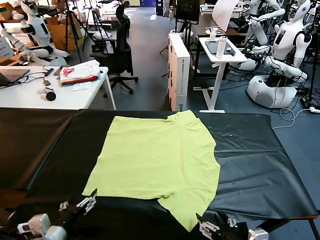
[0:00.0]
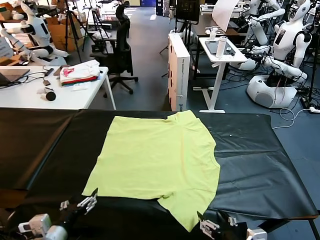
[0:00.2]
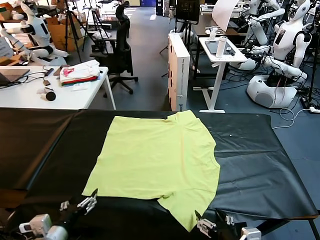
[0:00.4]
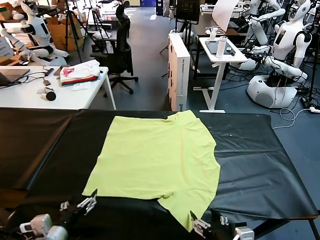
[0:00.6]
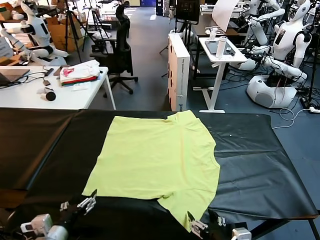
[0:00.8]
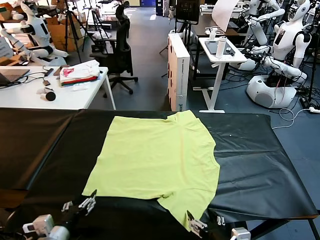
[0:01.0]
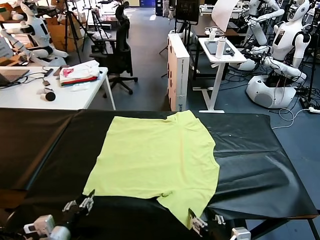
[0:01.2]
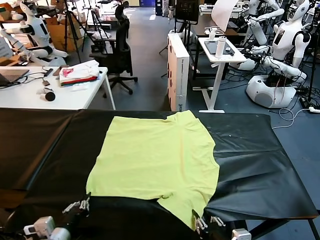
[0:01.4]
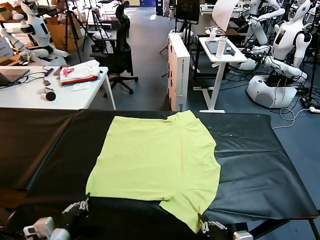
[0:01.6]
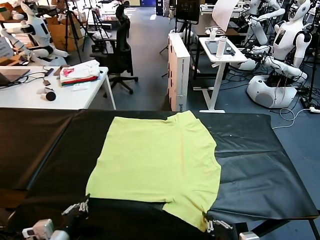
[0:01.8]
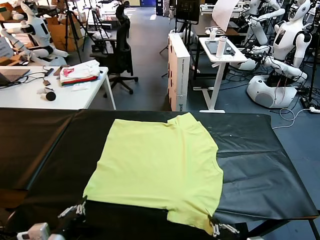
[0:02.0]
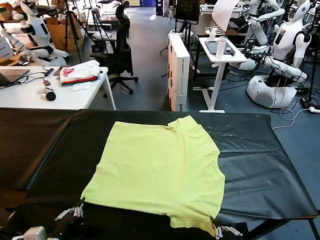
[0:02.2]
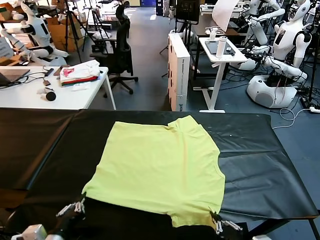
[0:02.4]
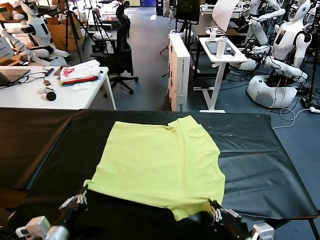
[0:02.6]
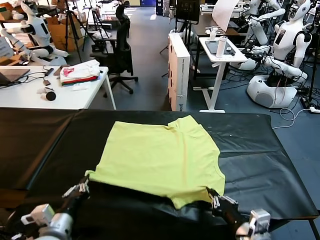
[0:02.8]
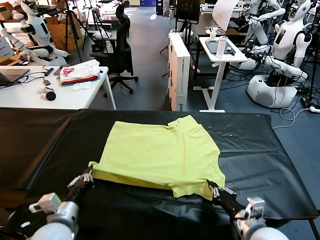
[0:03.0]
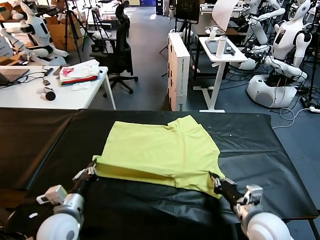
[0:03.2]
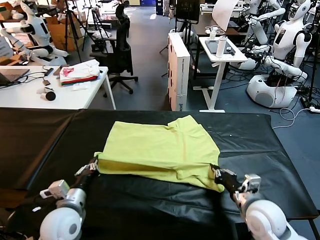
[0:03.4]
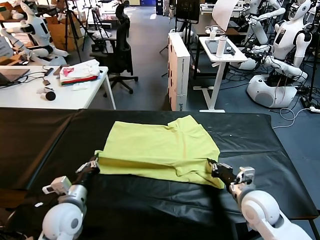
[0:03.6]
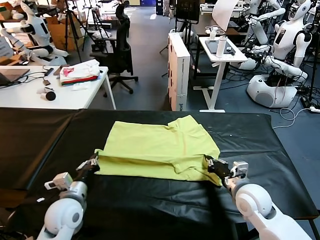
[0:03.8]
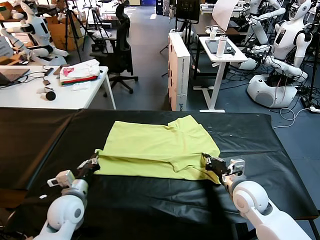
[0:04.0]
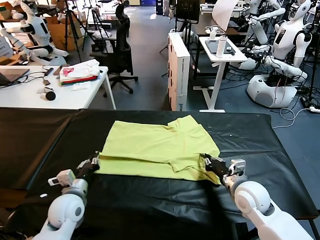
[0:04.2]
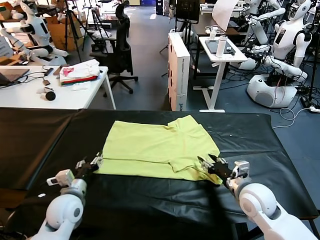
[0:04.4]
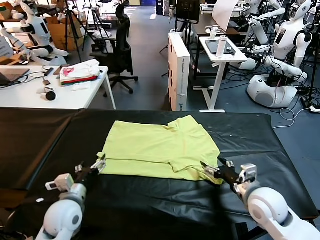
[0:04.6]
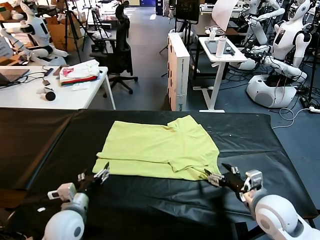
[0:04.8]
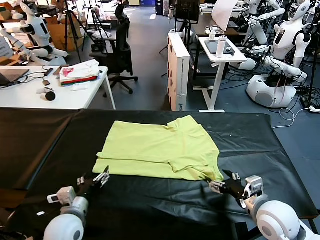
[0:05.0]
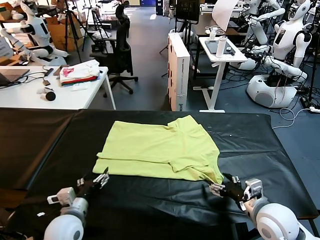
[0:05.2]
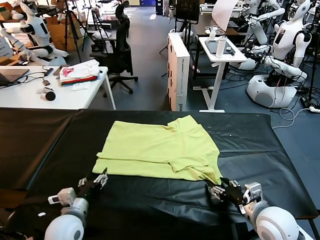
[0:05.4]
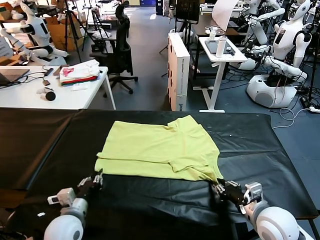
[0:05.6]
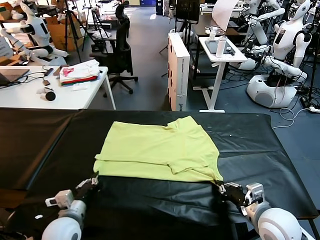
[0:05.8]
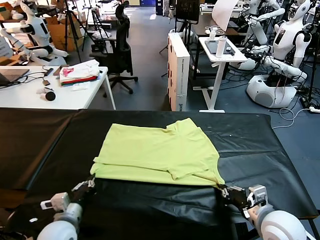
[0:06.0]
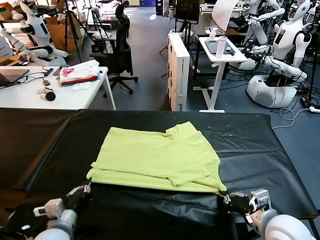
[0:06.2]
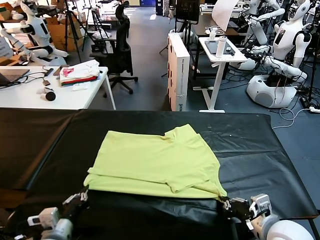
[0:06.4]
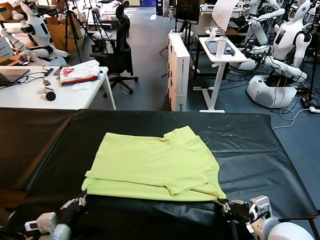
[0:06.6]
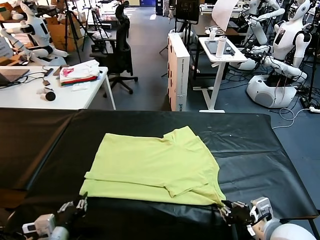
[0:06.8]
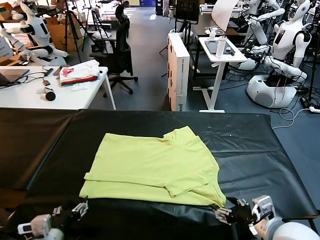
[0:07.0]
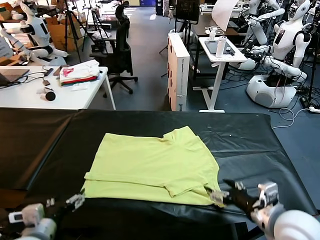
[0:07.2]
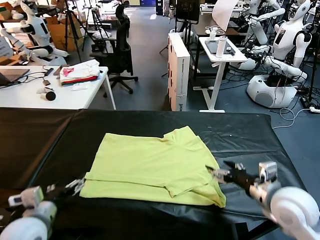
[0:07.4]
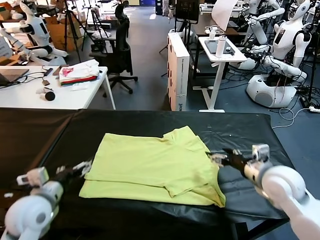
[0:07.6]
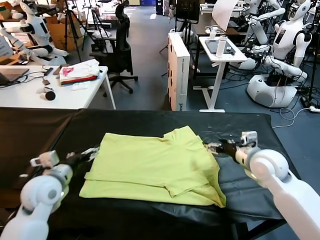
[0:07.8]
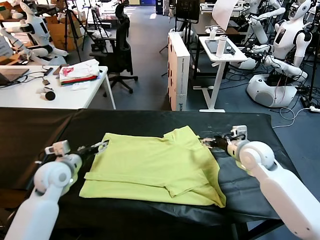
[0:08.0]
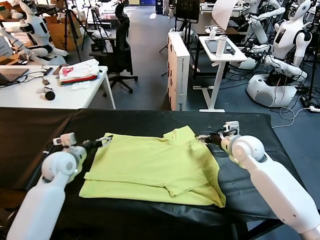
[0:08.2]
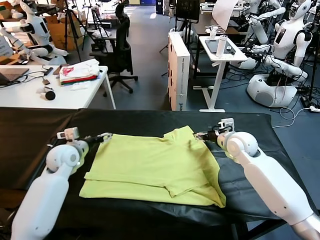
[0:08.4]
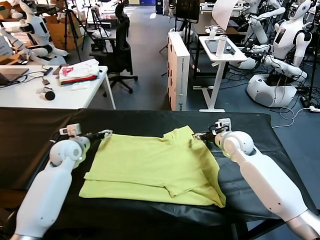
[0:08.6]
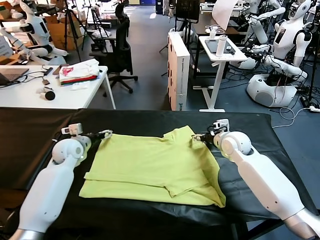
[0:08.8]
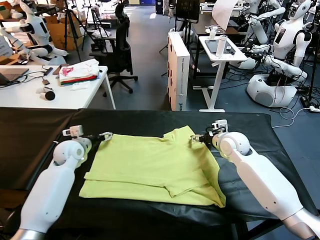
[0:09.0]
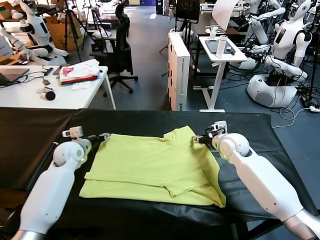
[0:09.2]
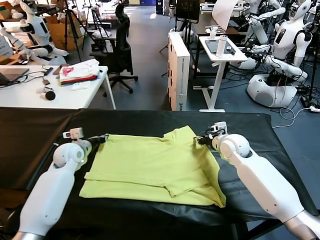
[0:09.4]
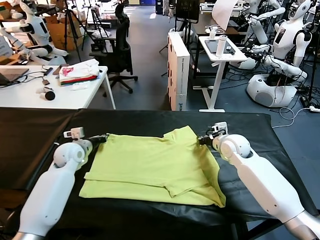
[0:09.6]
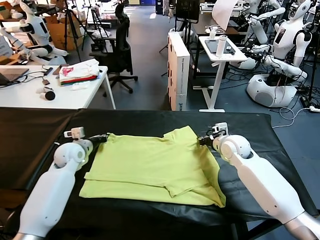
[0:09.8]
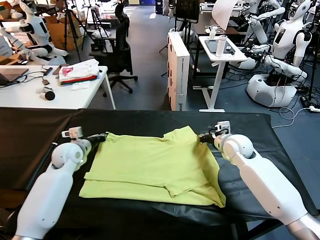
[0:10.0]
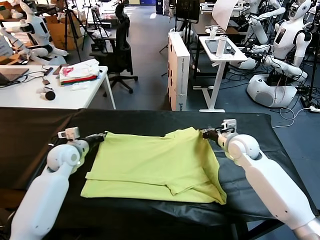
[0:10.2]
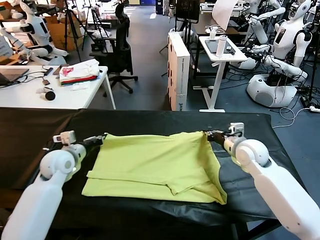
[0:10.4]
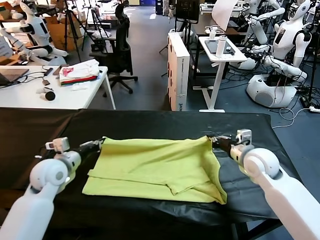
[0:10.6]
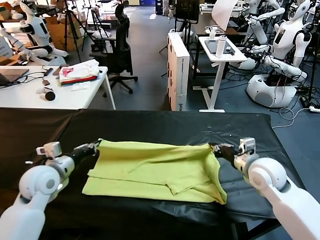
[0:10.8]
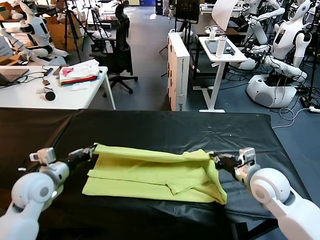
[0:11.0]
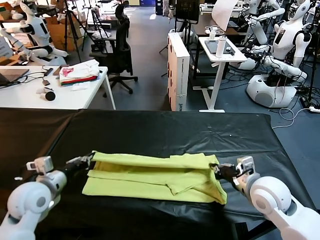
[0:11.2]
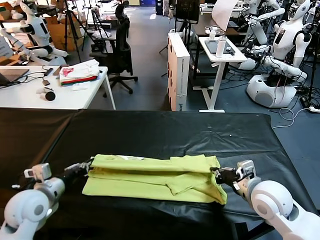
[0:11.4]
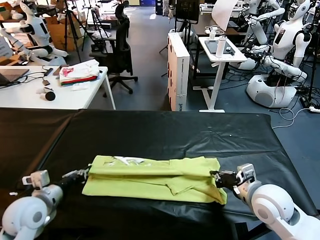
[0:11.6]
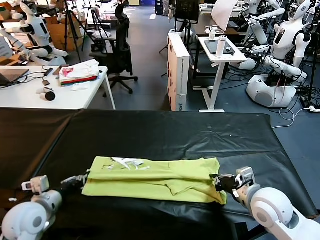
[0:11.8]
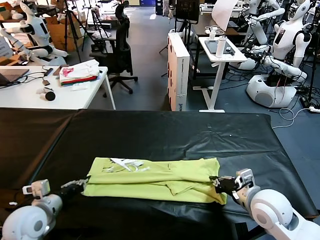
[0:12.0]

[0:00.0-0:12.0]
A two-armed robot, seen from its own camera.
Task of the whole recording: fold and organize the clothes.
Step, 0:00.0 to 0:01.6: use both grippers simultaneously to clamp the lower edge of the clothing fabric.
Step, 0:02.0 to 0:04.4: use both grippers to drag the lower edge of the fabric forward and fold it over the upper edge.
Step, 0:04.6 to 0:07.0: Drag the clothes downward with both gripper.
Step, 0:07.2 to 0:09.8: use both grippers simultaneously to clamp the upper edge of the clothing fabric.
0:01.6 to 0:03.0: The left gripper is displaced forward by about 10 cm. Meanwhile the right gripper travels forward by about 15 cm.
0:03.0 to 0:04.4: The left gripper travels forward by some 5 cm, and opens. The right gripper opens its fingers.
0:04.4 to 0:06.0: The grippers both shift backward by roughly 10 cm. The left gripper closes, while the right gripper closes.
0:06.0 to 0:07.6: The right gripper travels forward by some 20 cm, and opens up. Meanwhile the left gripper heads upward and forward, covering about 10 cm, and opens up.
0:07.6 to 0:09.0: The left gripper travels forward by roughly 20 cm, while the right gripper goes approximately 10 cm forward and downward.
0:09.0 to 0:10.4: Both grippers travel together backward, about 10 cm. The right gripper closes. The left gripper closes.
0:10.4 to 0:12.0: The two grippers go about 15 cm backward.

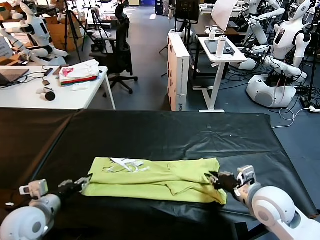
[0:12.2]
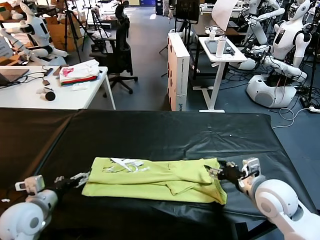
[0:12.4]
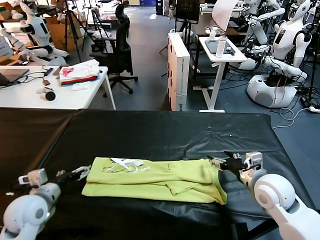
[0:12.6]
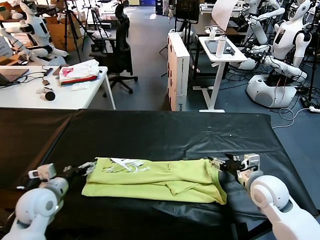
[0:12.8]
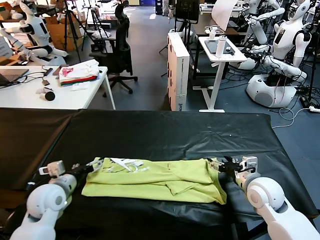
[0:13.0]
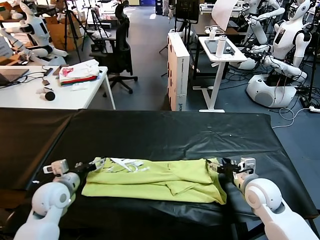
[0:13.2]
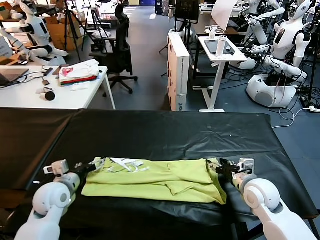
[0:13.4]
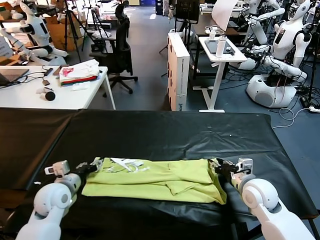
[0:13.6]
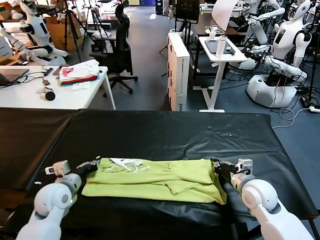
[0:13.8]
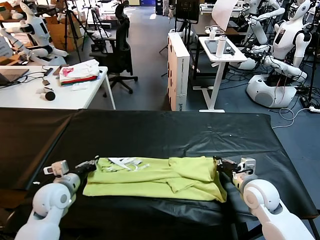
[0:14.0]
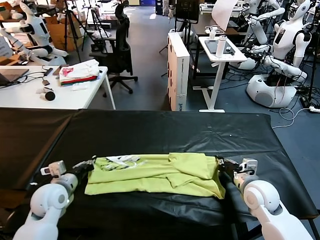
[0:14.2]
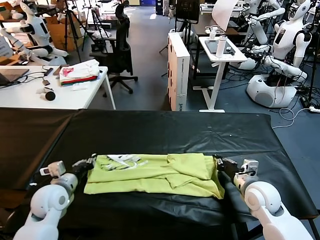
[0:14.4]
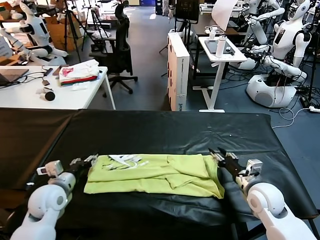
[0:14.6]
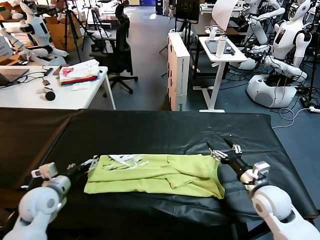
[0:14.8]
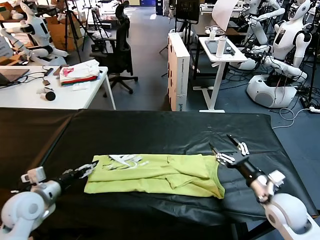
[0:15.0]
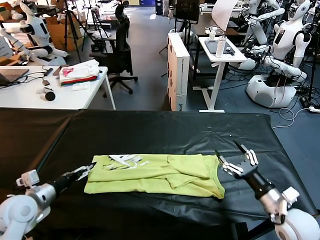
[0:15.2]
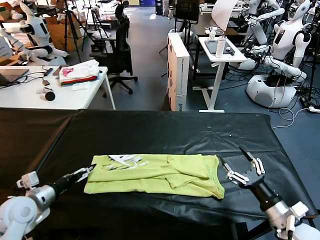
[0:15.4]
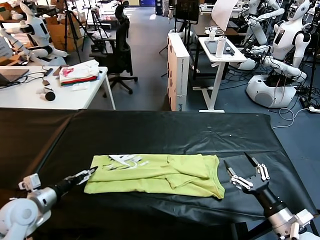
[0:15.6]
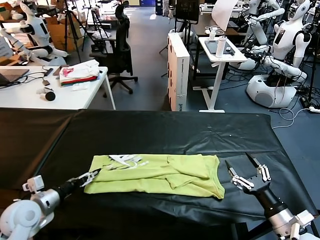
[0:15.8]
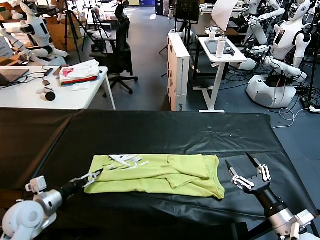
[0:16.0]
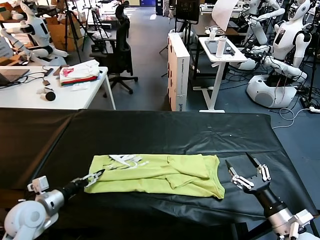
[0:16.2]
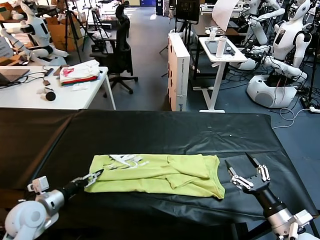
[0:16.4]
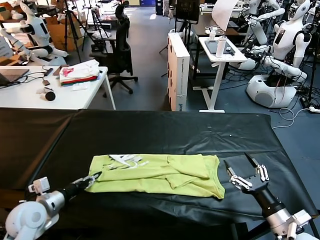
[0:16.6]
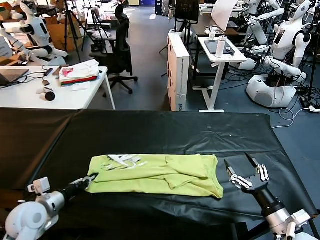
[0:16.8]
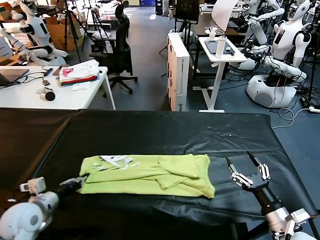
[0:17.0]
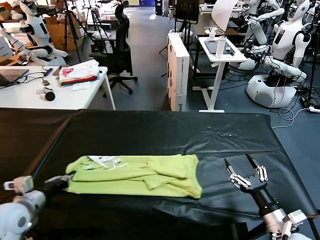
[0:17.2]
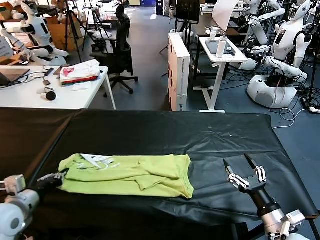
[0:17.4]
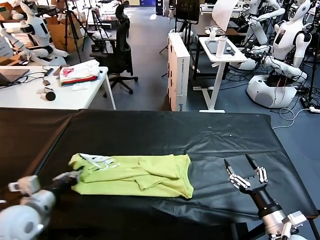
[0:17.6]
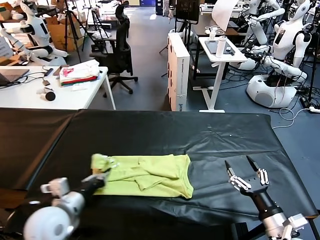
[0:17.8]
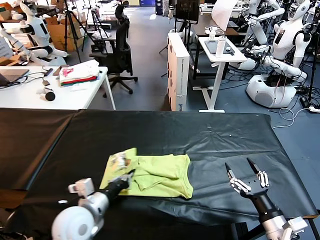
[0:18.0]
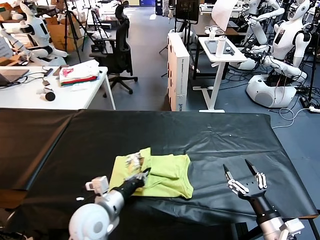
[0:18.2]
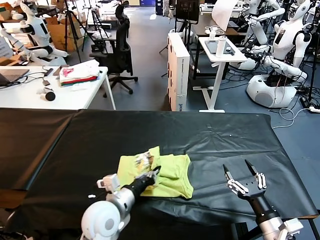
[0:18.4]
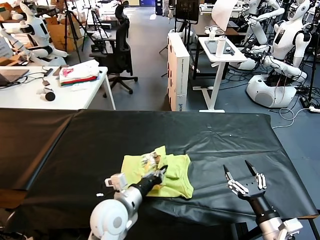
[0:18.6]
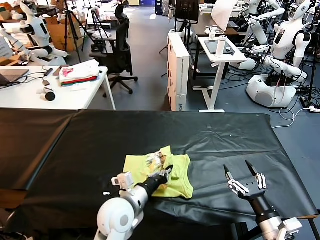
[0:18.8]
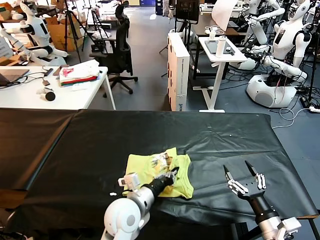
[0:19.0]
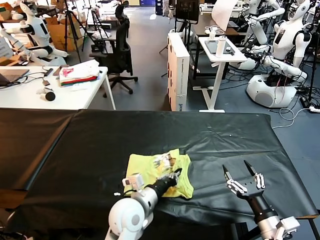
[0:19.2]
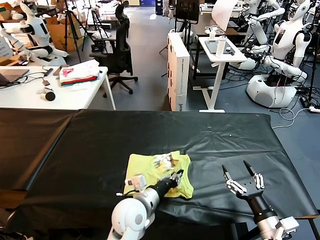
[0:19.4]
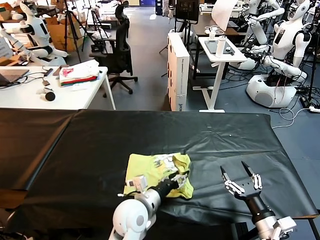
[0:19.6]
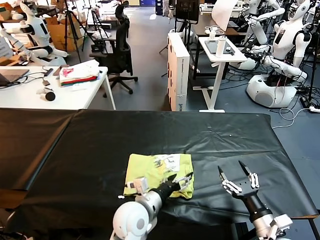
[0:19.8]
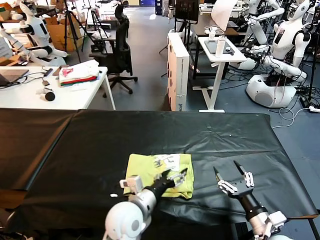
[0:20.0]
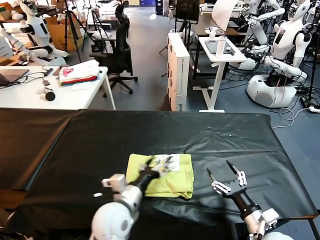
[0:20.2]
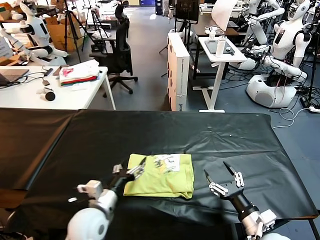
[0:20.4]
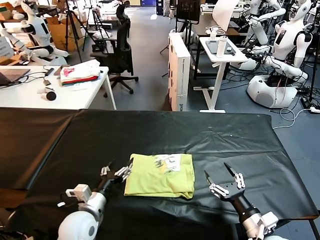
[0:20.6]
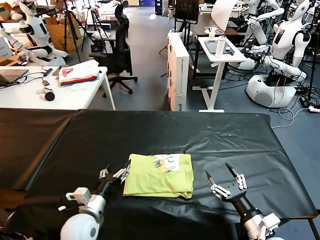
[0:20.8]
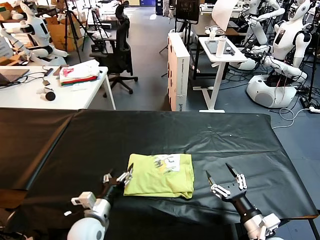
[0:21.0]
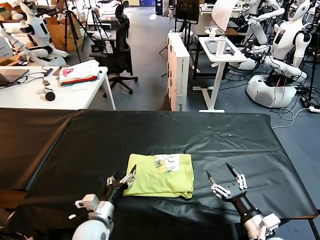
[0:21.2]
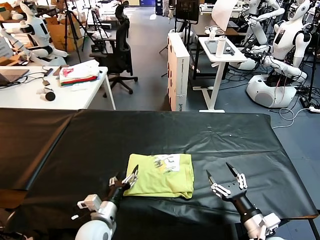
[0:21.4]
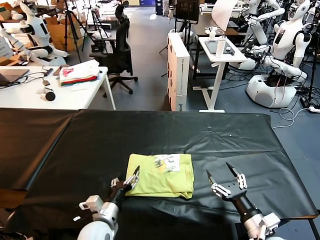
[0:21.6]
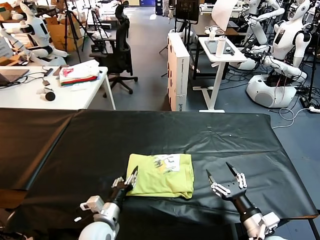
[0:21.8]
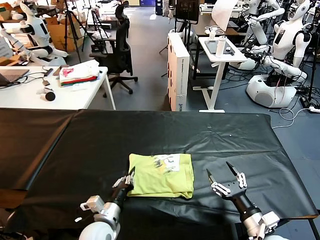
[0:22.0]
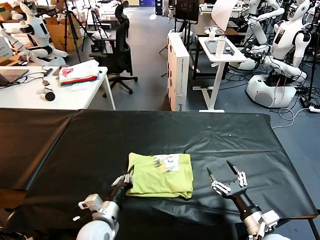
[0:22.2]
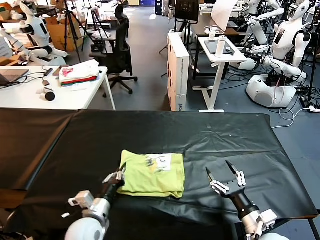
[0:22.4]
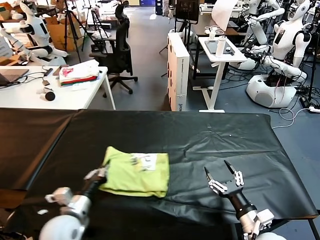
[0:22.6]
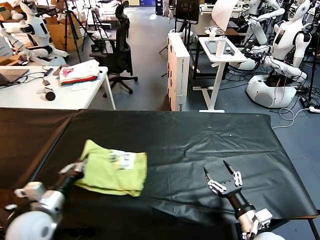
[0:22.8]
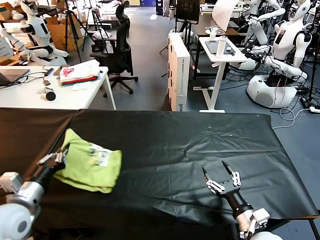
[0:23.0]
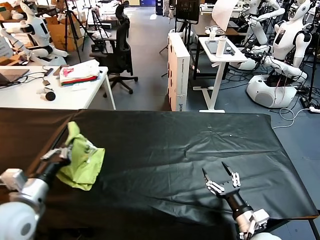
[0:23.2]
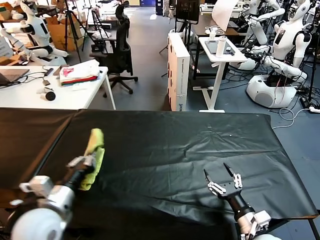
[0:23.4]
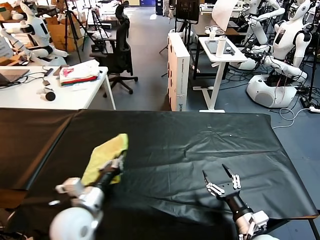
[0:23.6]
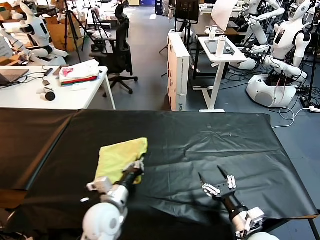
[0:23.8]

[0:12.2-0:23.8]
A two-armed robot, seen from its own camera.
Task of the whole recording: fold and organize the clothes.
Step, 0:12.6 to 0:16.8: use the left gripper to clamp the left edge of the fabric.
Step, 0:17.0 to 0:19.6: use the left gripper to drag the left edge of the fabric to the left and folds it over the right edge.
0:12.2 to 0:13.6: The right gripper travels downward by approximately 5 cm, and closes, while the left gripper moves forward, about 10 cm.
0:13.6 to 0:15.0: The right gripper goes approximately 10 cm backward and to the right, and opens its fingers; the left gripper travels to the left by some 5 cm, and opens up.
0:15.0 to 0:16.6: The left gripper closes its fingers, while the right gripper travels backward by some 5 cm.
0:16.6 to 0:18.0: The left gripper moves to the right, approximately 15 cm.
0:18.0 to 0:19.4: The left gripper is displaced to the right by approximately 15 cm.
0:19.4 to 0:21.0: The left gripper goes about 15 cm to the left and downward, and opens up.
0:21.0 to 0:22.4: The left gripper closes its fingers.
0:22.4 to 0:23.8: The left gripper reaches approximately 15 cm to the left, then returns.
